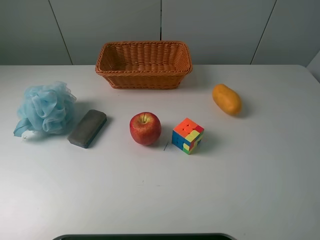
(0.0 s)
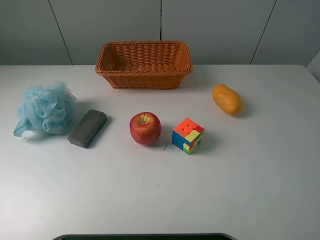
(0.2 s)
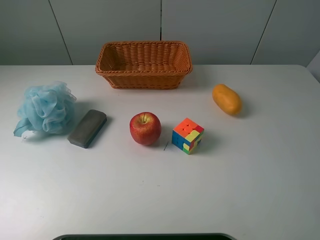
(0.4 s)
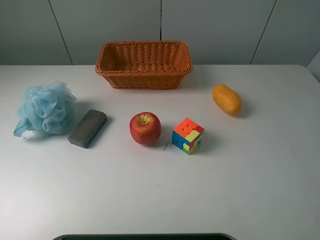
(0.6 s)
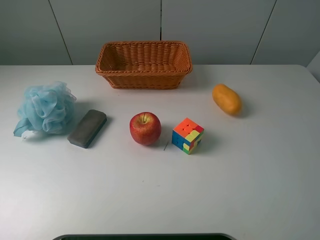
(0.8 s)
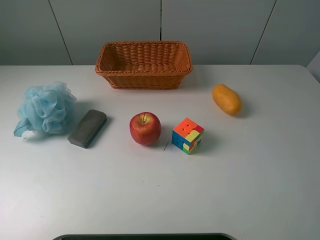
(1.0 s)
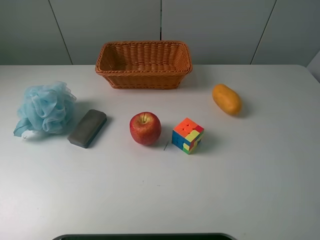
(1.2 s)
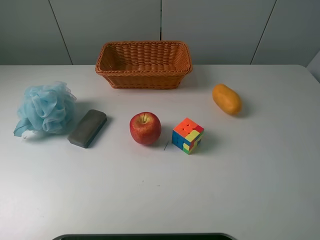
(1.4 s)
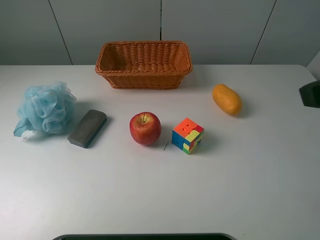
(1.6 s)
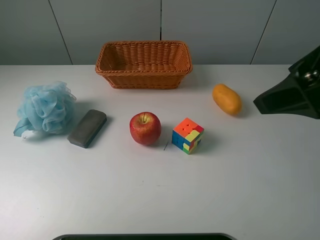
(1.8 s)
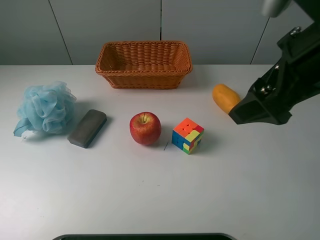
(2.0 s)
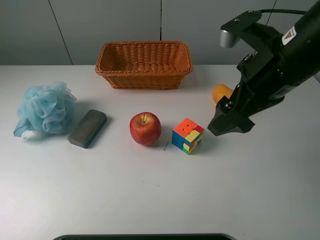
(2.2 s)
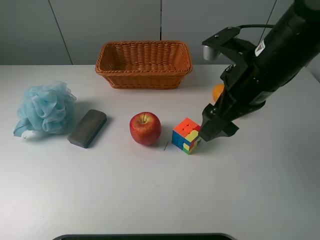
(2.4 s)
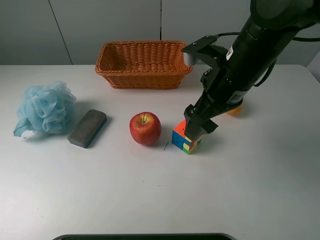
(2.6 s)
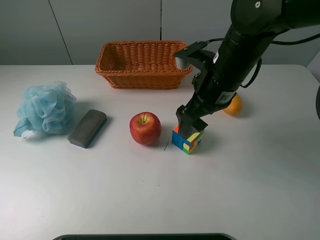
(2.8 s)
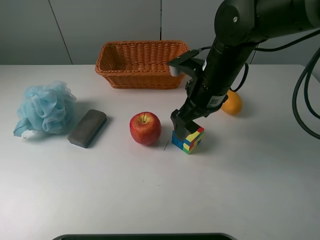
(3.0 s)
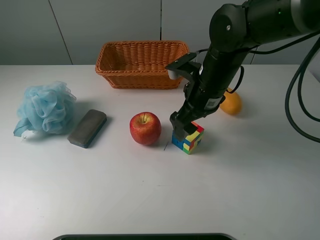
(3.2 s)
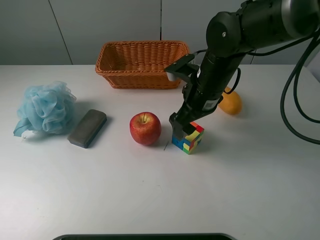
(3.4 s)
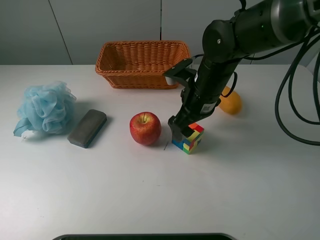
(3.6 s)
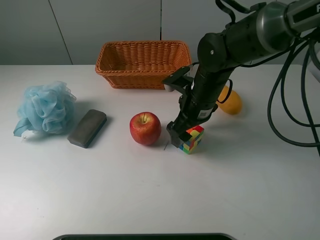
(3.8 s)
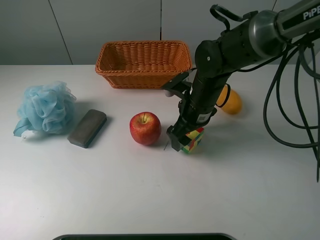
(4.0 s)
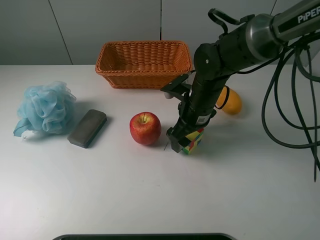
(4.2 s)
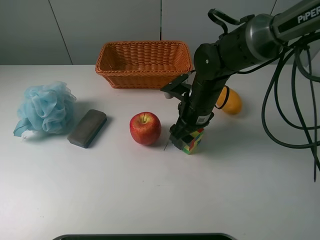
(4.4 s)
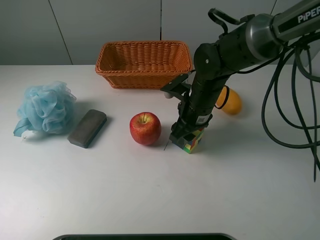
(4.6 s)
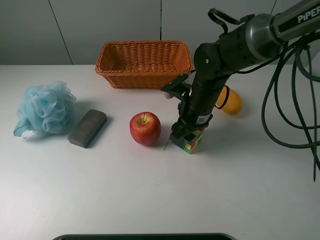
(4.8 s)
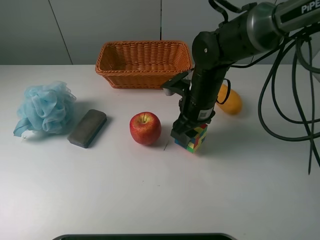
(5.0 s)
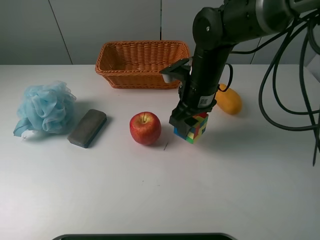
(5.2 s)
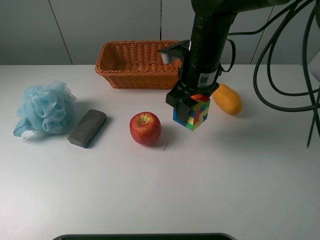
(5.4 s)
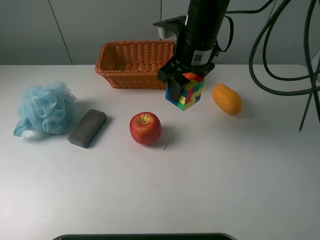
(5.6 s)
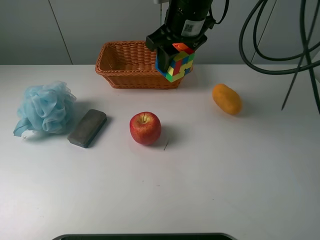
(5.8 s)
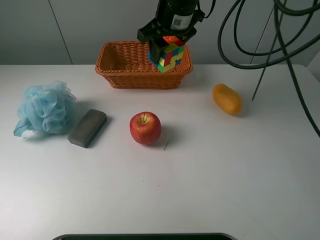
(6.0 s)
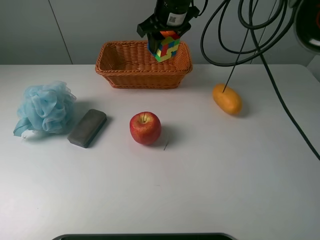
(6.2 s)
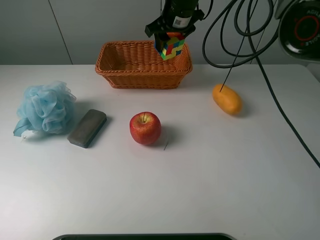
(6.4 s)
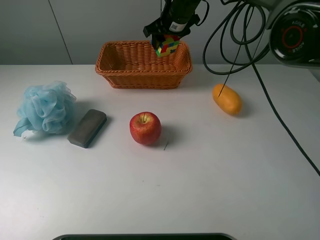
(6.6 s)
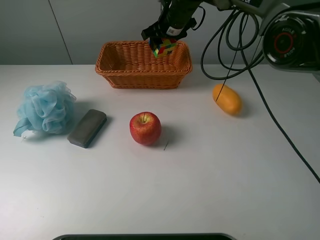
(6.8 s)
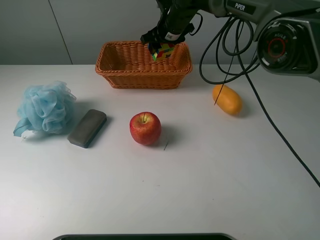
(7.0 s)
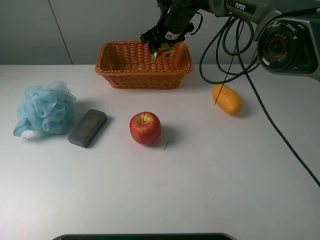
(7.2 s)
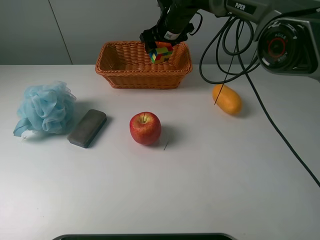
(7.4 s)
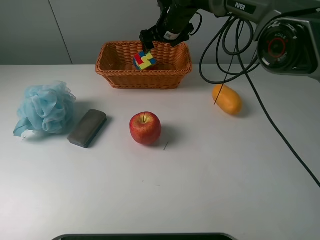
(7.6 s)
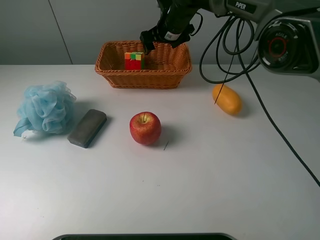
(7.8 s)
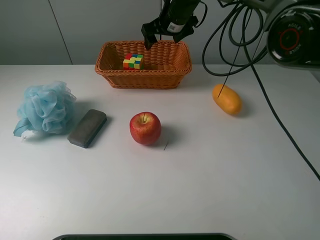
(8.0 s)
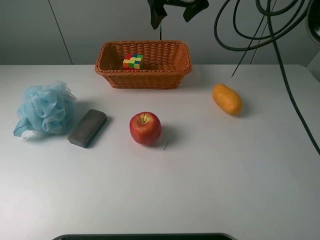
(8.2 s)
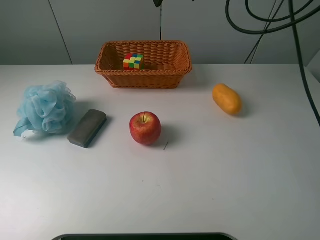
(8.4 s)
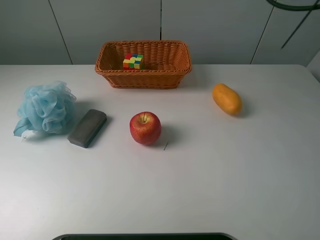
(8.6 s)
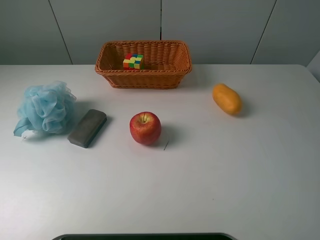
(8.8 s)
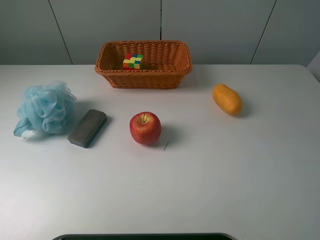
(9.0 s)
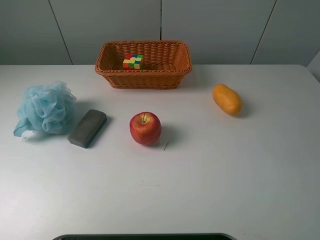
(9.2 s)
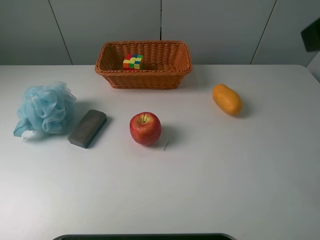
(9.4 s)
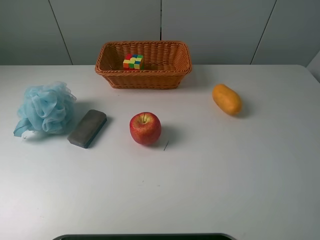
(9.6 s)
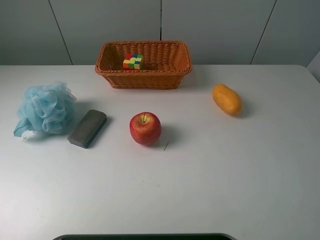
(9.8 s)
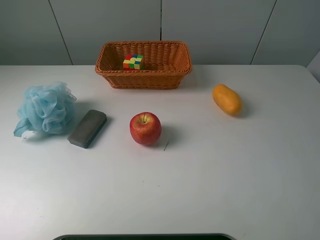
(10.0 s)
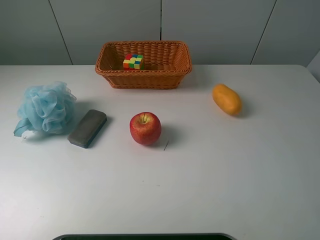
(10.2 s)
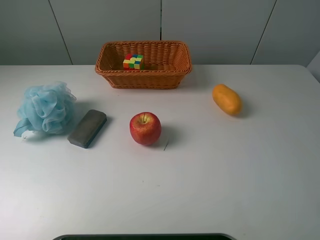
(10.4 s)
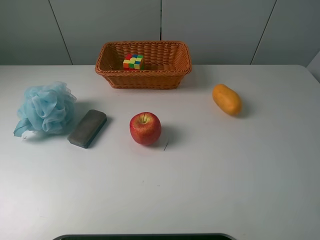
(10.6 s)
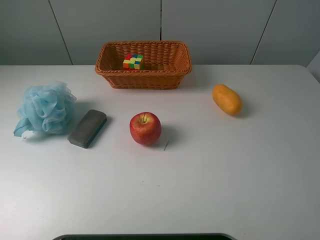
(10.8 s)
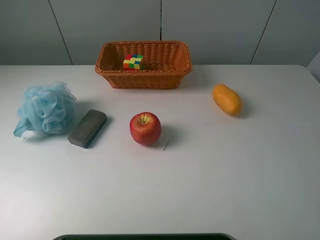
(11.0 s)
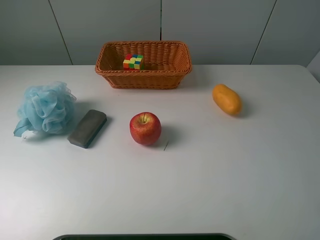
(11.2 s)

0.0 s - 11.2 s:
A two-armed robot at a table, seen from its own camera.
Task of the whole recording: use a picker to grab the item closest to the apple and place it in the basket.
Step, 0.0 s - 4.4 s: Grasp the Rubik's Cube with the right gripper.
Step, 4.6 s - 8.0 s: Place the Rubik's Cube into the basket with the right gripper.
1.6 s - 3.2 s: The right gripper is displaced downward, forward and to the left by approximately 30 cm.
3.2 s - 4.8 s: The right gripper travels downward by roughly 5 cm, and closes its fingers.
4.8 s - 6.4 s: The right gripper moves forward and upward, some 20 cm.
6.4 s - 8.0 s: The right gripper opens.
8.0 s - 9.6 s: The right gripper shifts about 50 cm backward and to the right.
